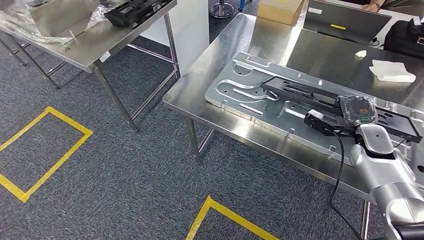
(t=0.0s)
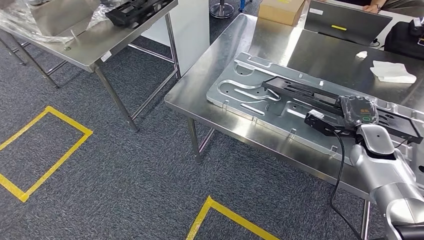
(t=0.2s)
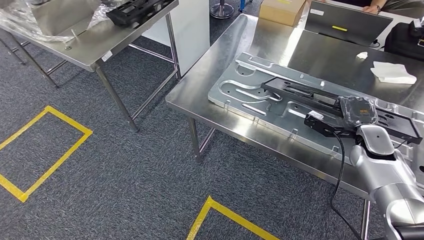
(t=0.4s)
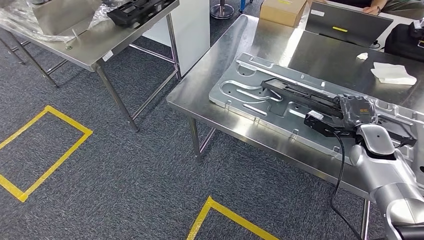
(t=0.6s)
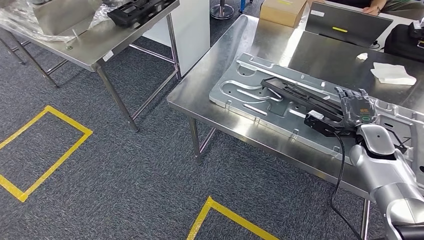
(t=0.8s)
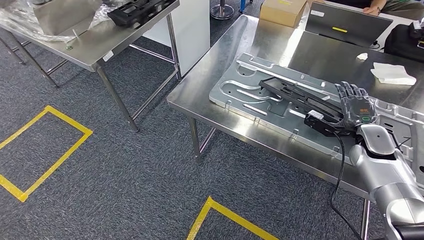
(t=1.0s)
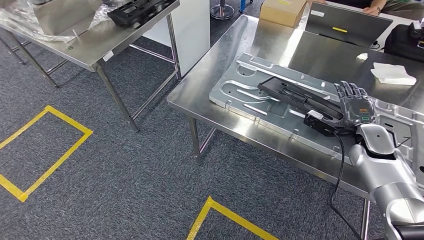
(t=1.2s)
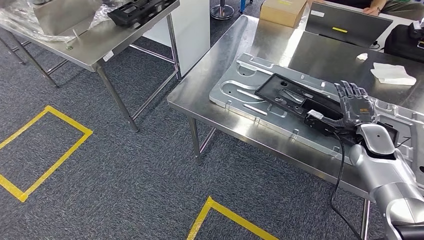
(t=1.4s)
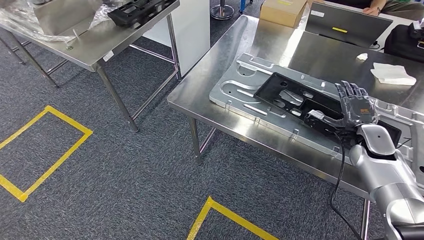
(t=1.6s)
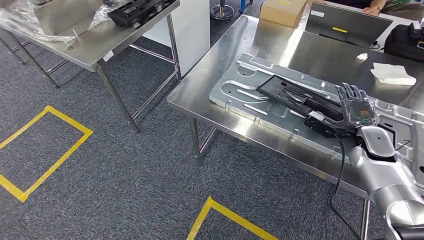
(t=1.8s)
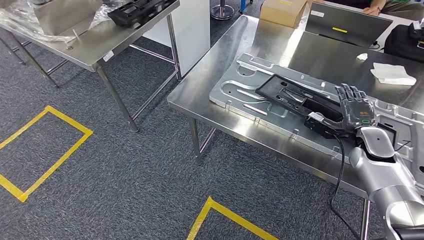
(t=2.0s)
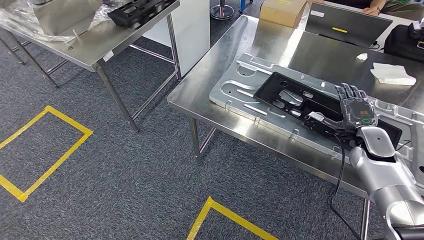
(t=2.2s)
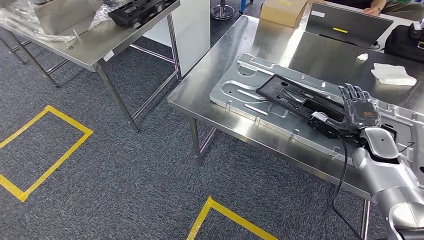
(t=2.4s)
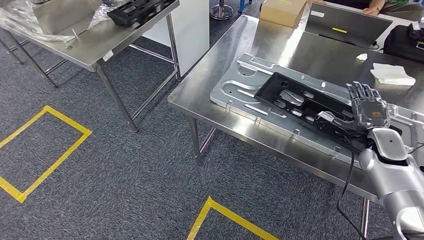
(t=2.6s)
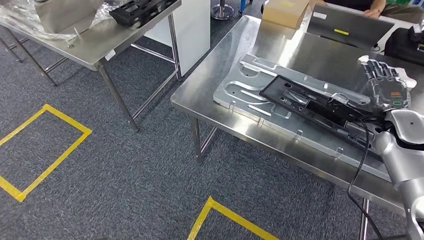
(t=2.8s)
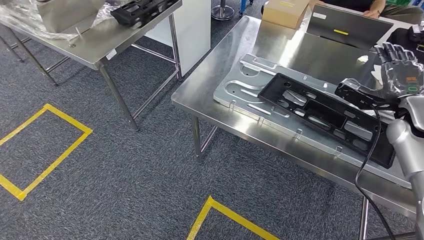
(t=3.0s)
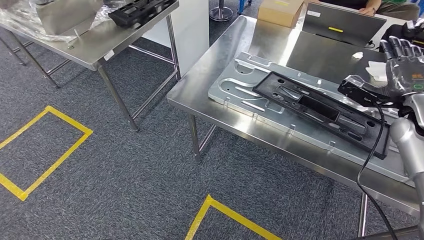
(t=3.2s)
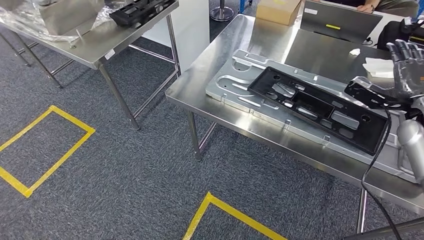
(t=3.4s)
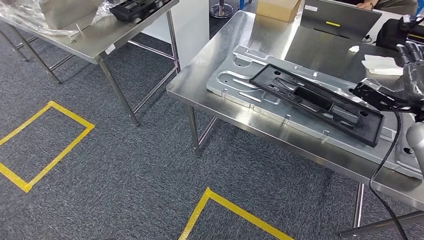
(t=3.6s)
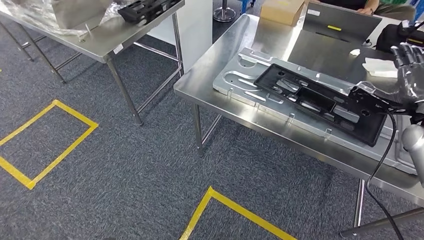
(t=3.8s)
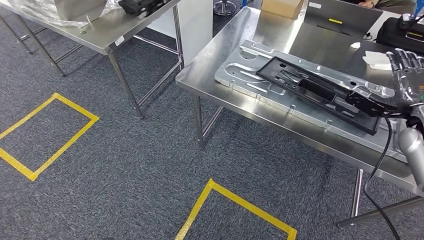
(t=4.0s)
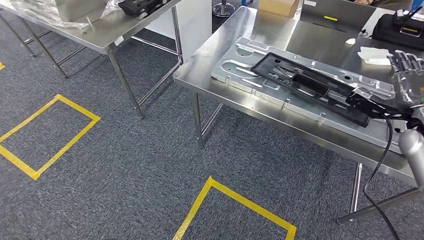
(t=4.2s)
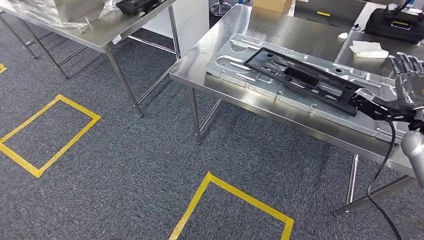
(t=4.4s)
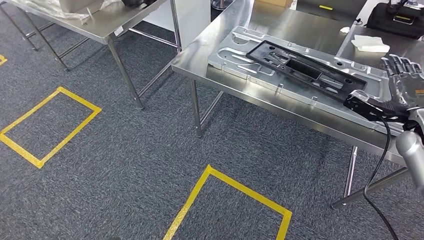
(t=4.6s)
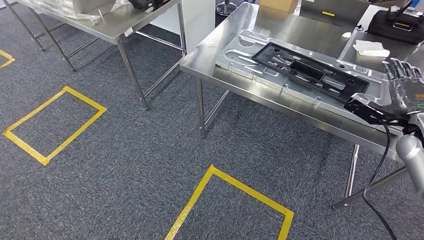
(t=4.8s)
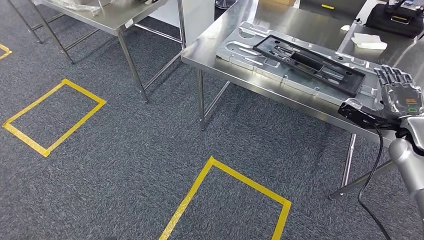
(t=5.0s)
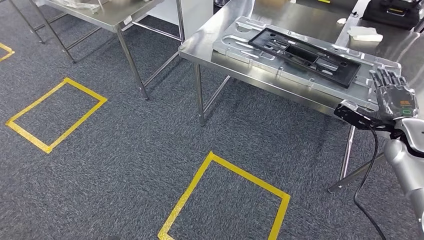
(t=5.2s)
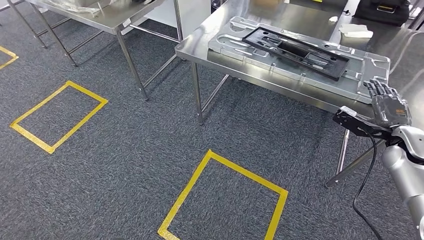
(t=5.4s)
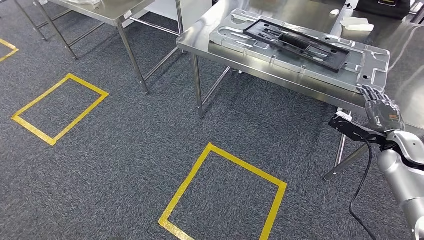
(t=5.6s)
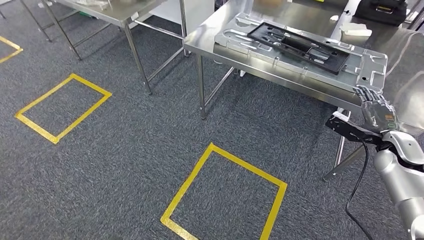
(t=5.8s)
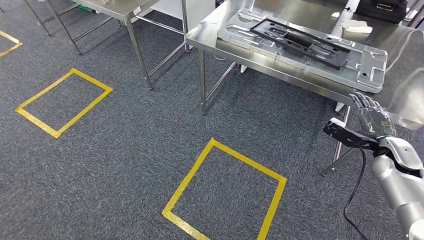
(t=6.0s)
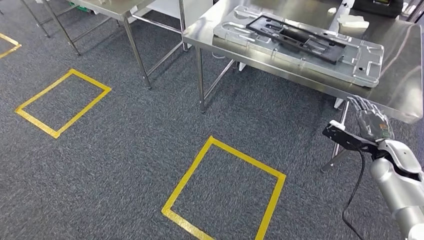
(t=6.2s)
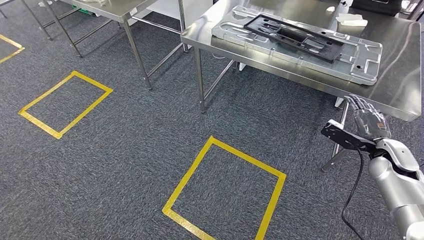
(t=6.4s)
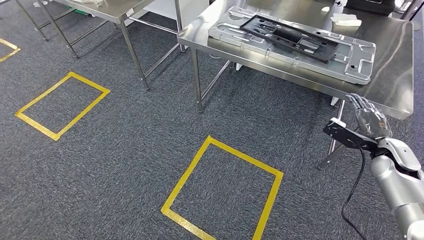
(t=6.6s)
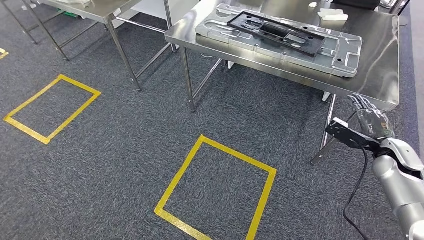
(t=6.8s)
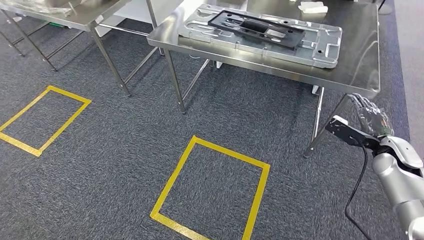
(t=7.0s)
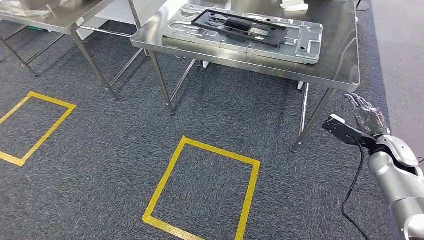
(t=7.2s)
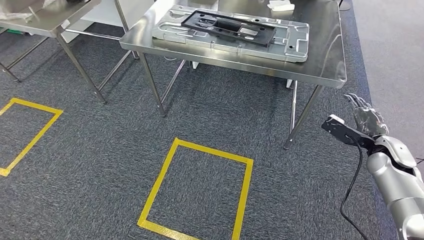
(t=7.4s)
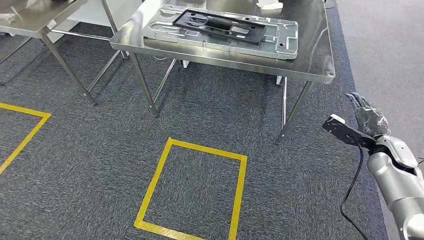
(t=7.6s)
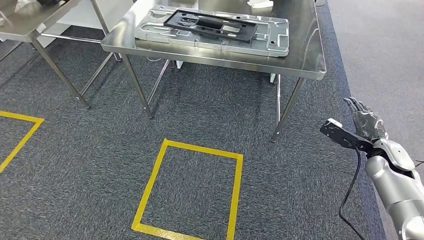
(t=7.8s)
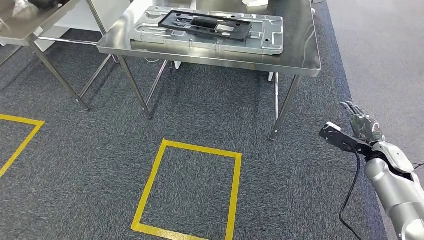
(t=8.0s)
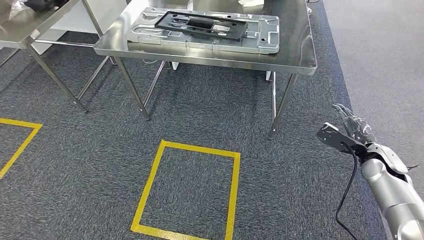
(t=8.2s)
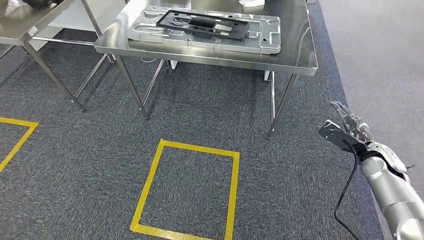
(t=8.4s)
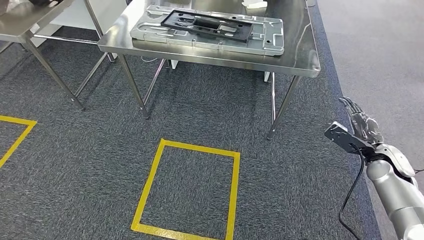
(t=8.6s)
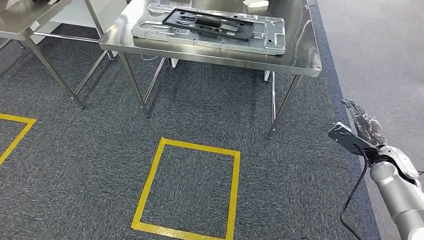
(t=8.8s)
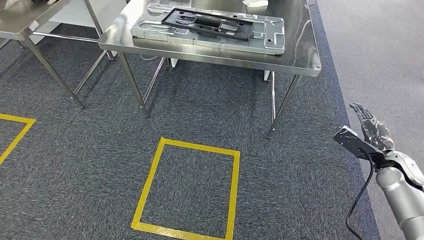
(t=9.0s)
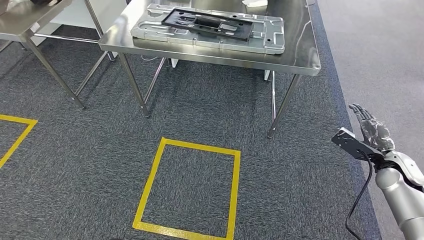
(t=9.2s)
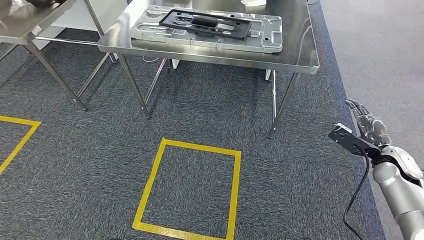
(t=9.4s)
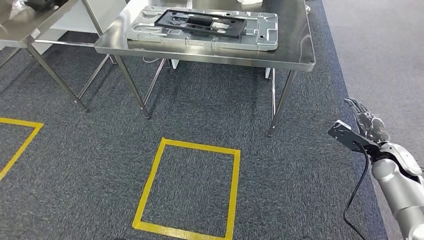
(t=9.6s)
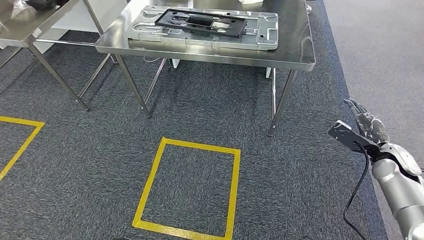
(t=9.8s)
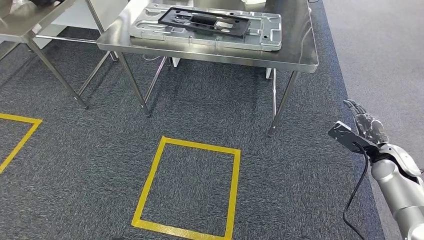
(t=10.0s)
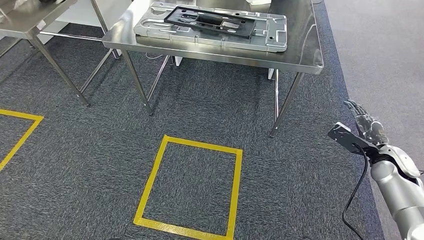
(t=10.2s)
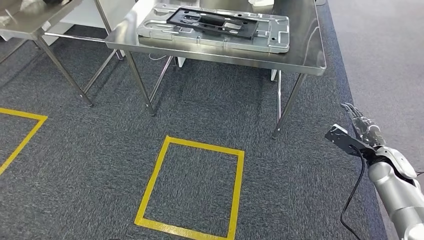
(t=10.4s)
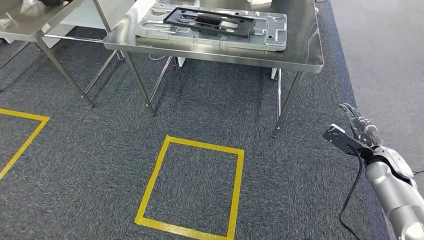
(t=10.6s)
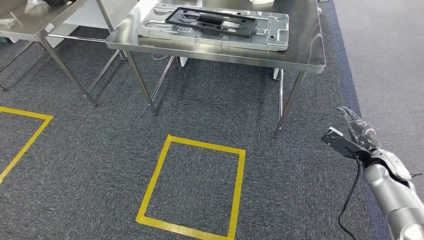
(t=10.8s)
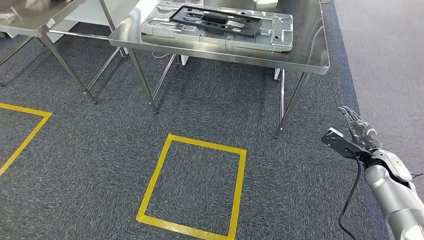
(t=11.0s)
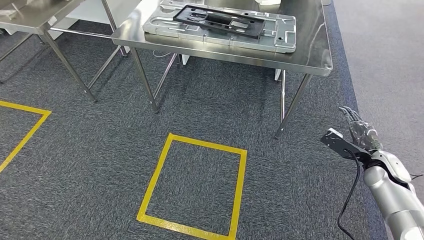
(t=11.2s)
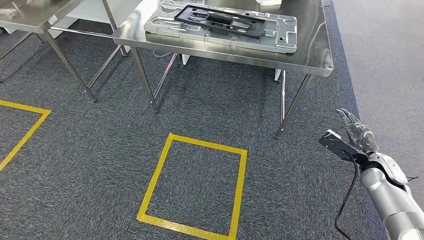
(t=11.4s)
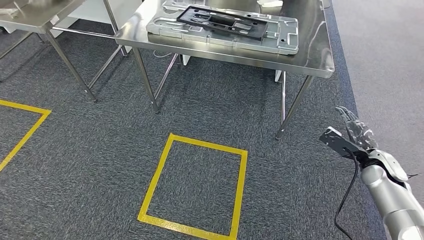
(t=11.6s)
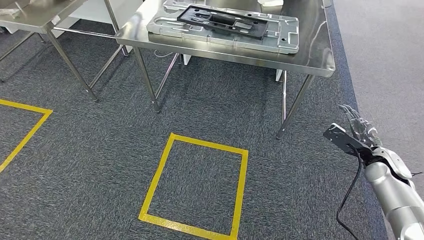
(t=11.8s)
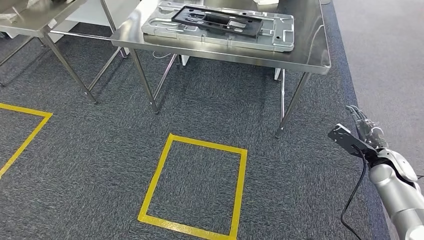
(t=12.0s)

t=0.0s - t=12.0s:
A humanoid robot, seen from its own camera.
Step, t=0.0s - t=4.6s: Insert the large material into the corresponding slot on the workbench.
t=0.0s - t=1.6s: Both hands stay put.
t=9.0s - t=12.0s: There are only small adjustments of the hands.

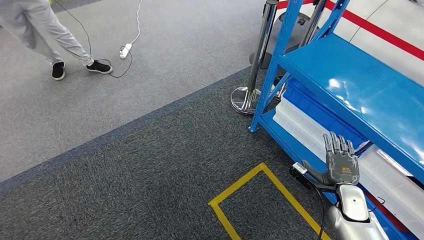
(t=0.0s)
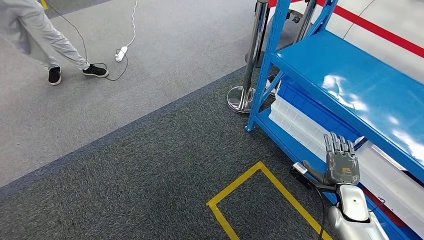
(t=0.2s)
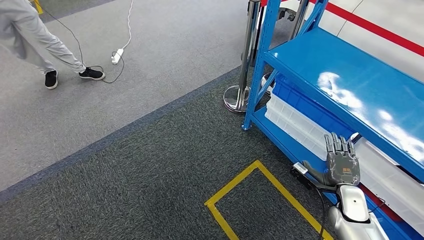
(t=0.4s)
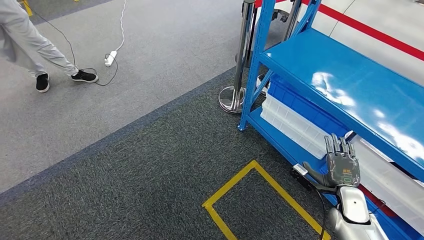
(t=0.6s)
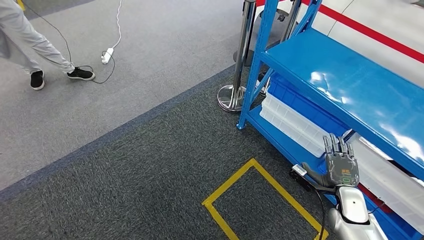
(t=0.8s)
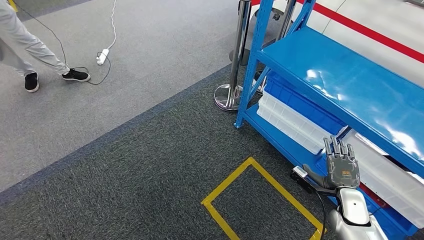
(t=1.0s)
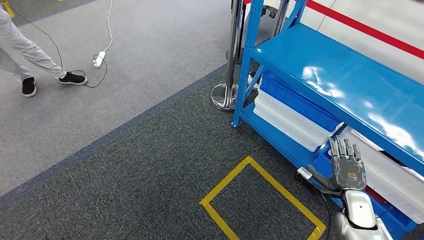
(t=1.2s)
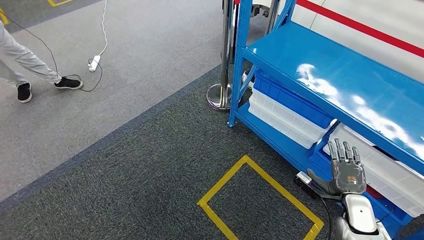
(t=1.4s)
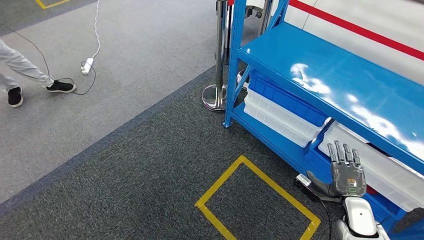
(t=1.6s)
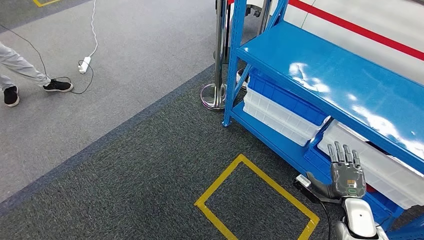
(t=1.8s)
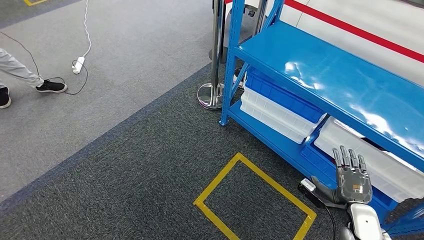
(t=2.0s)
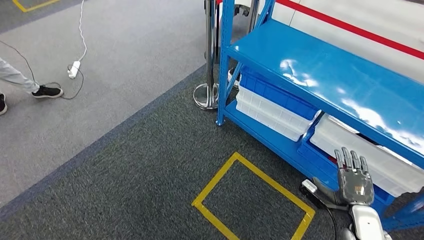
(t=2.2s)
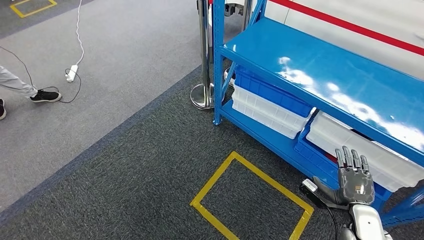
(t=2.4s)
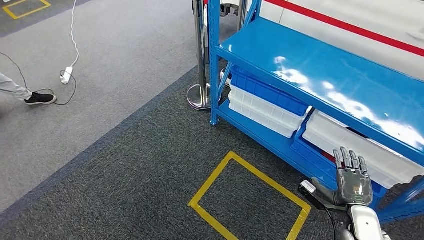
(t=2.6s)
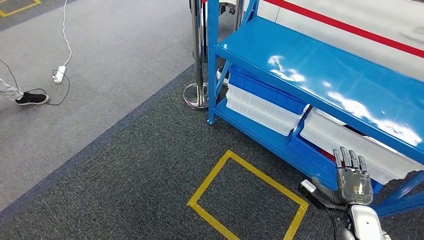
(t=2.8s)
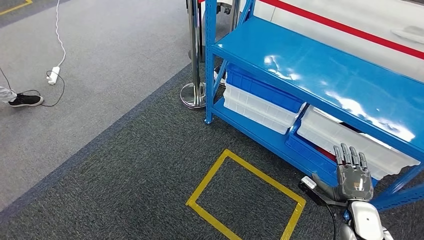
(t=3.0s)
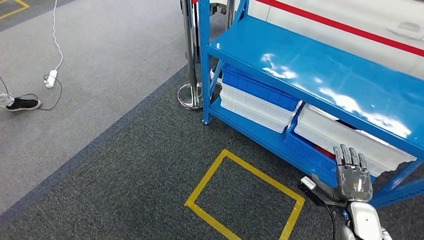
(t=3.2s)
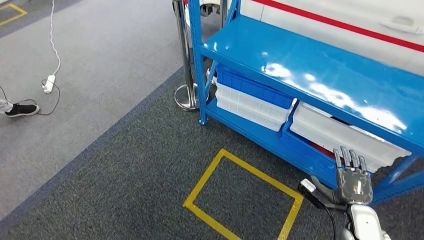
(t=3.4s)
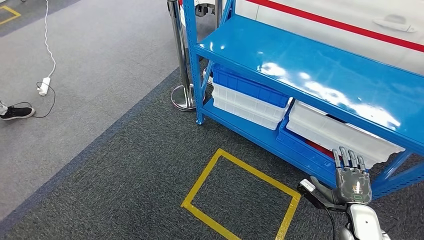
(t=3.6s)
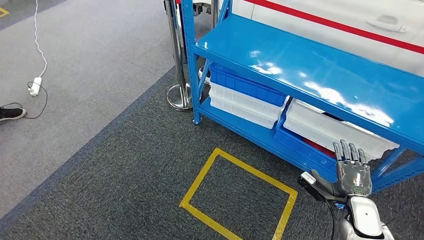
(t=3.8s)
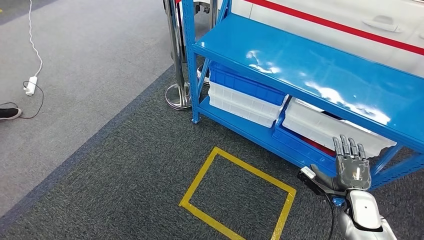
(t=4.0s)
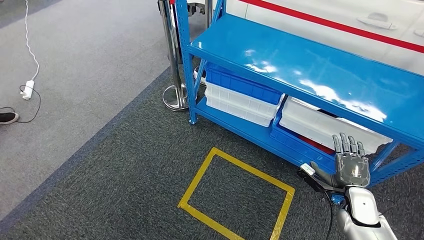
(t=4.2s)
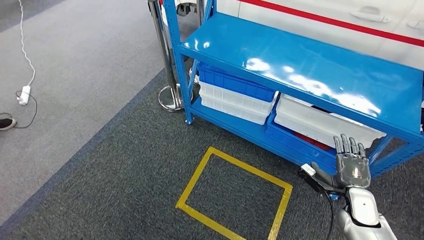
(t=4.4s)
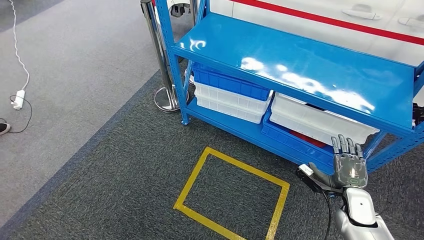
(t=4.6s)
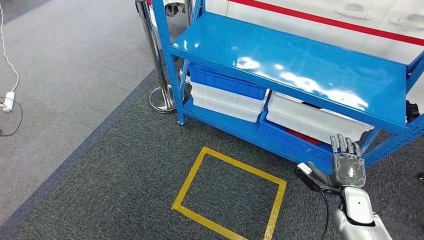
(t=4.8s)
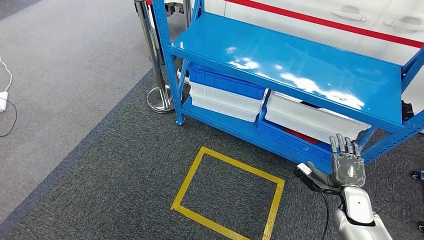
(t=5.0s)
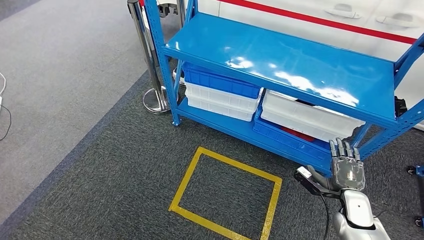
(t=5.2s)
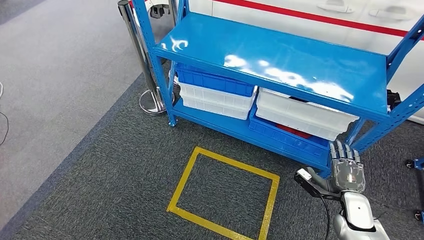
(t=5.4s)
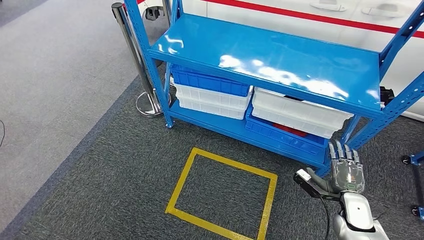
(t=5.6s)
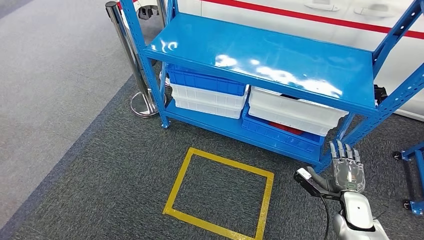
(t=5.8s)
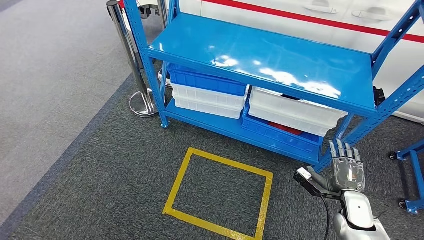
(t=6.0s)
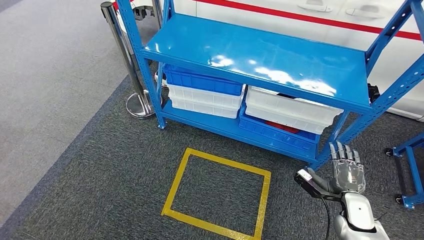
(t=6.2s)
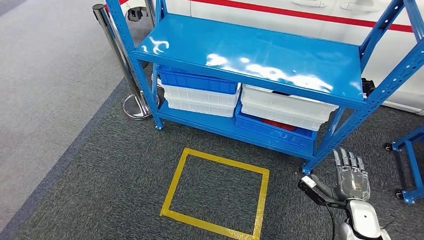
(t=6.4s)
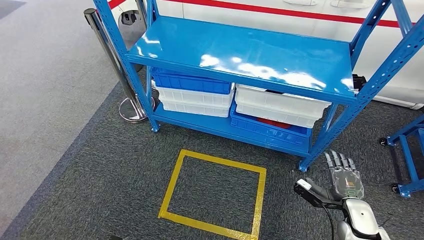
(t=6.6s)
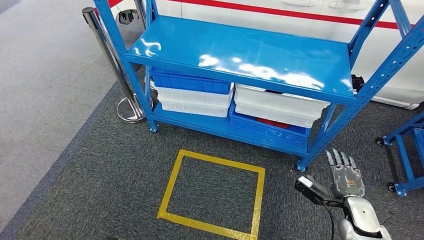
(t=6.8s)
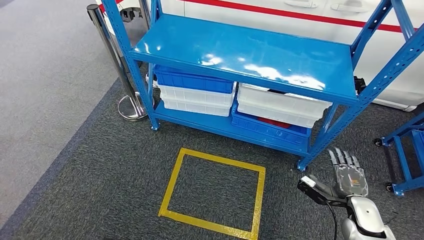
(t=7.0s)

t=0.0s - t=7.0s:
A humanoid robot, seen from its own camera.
Step, t=0.0s - t=6.2s: Return to the initial position at the shelf.
